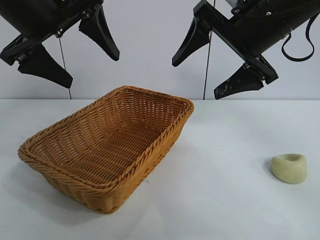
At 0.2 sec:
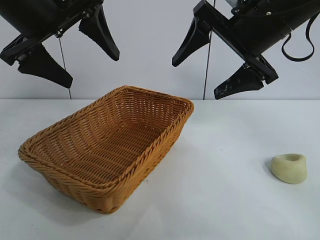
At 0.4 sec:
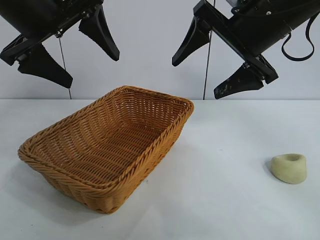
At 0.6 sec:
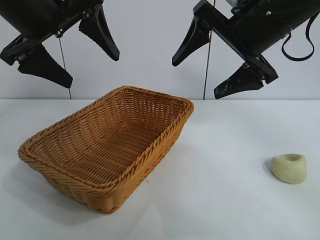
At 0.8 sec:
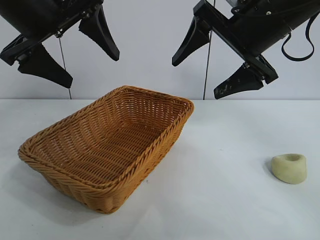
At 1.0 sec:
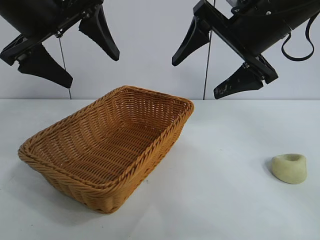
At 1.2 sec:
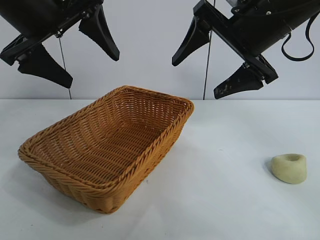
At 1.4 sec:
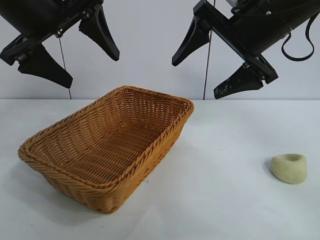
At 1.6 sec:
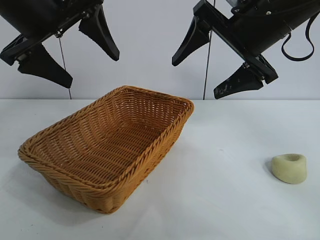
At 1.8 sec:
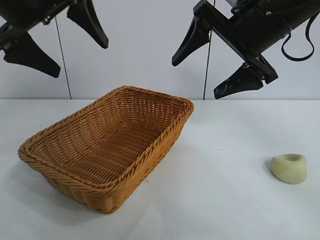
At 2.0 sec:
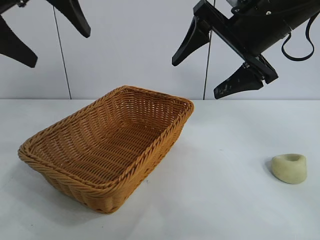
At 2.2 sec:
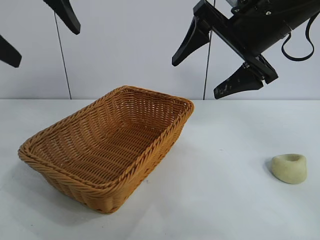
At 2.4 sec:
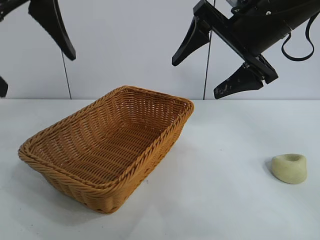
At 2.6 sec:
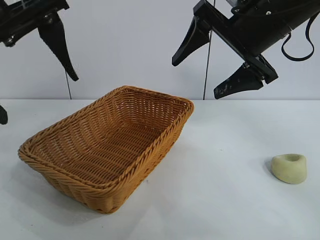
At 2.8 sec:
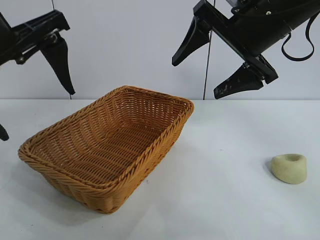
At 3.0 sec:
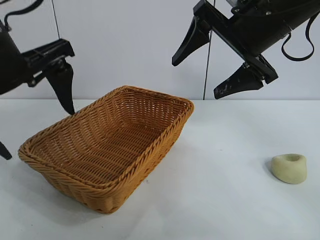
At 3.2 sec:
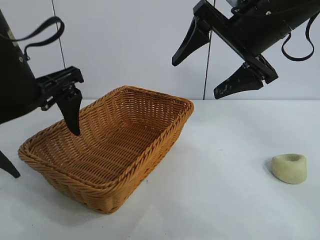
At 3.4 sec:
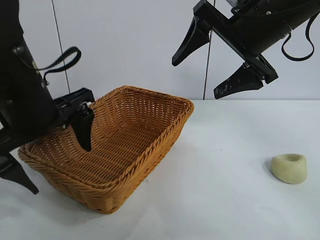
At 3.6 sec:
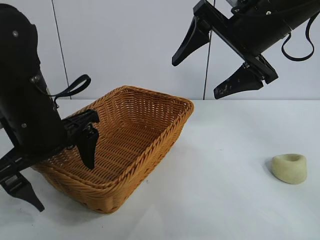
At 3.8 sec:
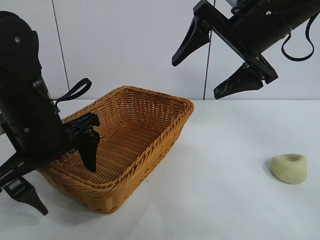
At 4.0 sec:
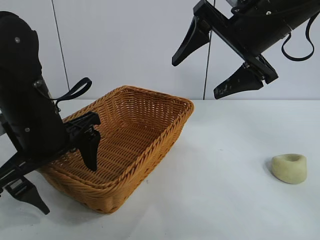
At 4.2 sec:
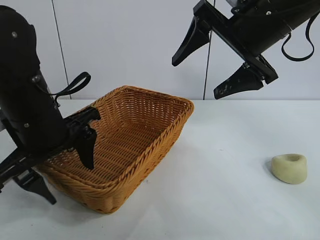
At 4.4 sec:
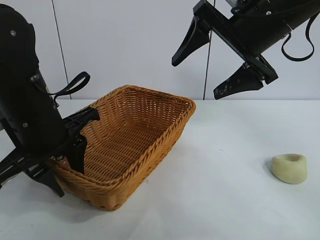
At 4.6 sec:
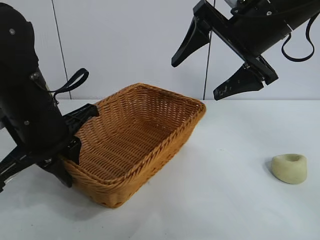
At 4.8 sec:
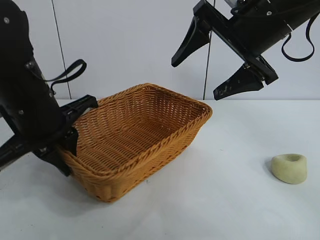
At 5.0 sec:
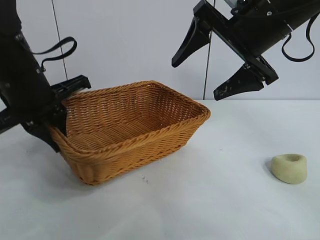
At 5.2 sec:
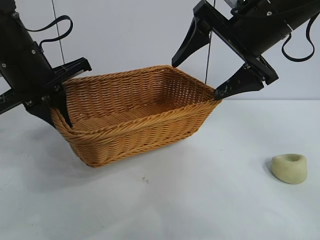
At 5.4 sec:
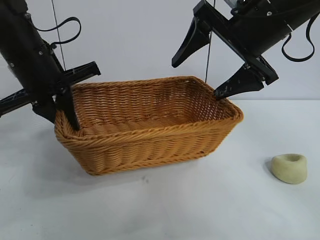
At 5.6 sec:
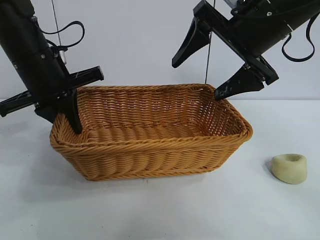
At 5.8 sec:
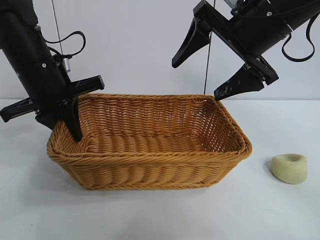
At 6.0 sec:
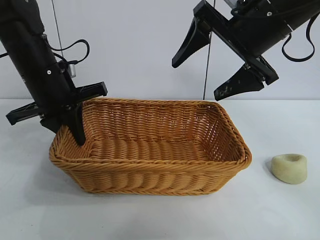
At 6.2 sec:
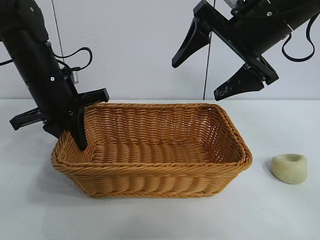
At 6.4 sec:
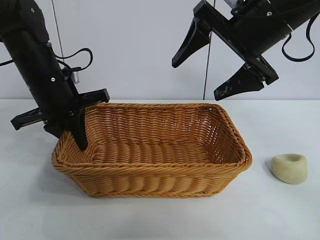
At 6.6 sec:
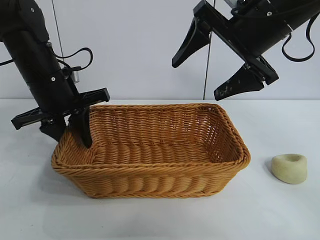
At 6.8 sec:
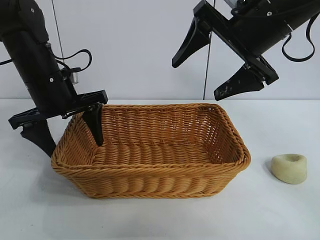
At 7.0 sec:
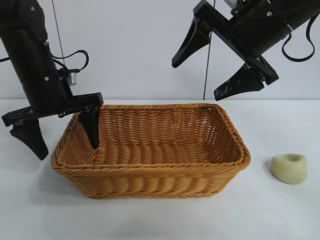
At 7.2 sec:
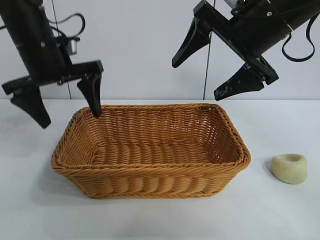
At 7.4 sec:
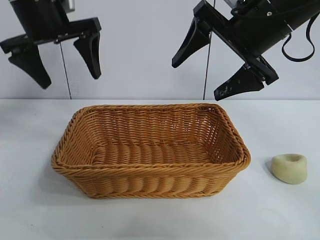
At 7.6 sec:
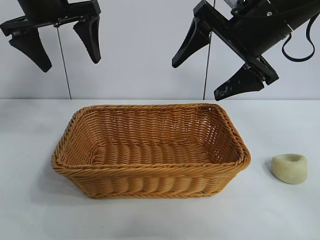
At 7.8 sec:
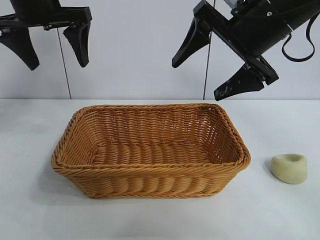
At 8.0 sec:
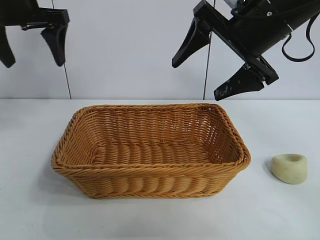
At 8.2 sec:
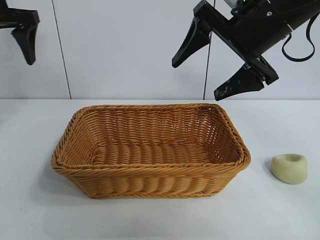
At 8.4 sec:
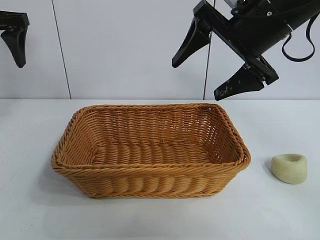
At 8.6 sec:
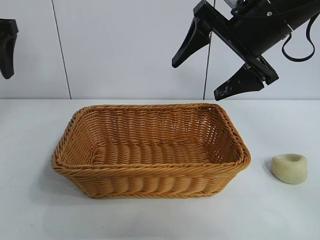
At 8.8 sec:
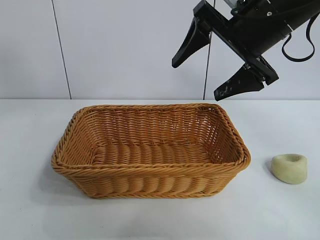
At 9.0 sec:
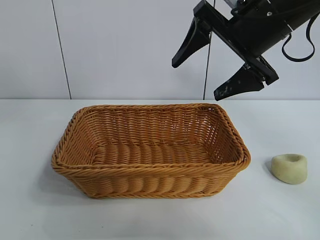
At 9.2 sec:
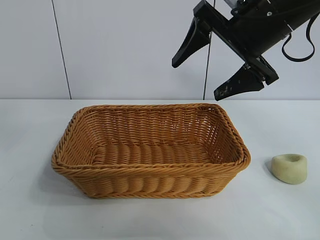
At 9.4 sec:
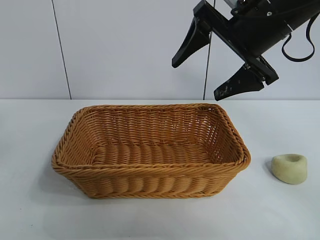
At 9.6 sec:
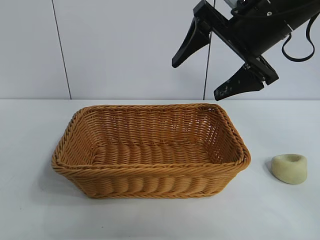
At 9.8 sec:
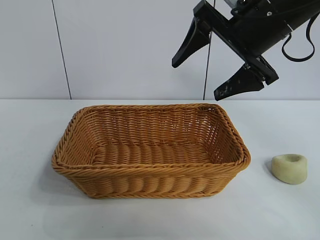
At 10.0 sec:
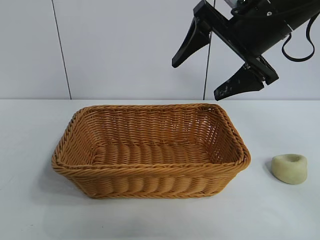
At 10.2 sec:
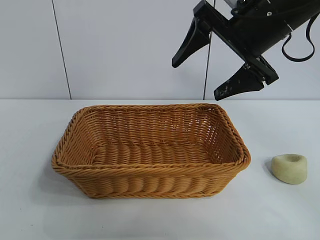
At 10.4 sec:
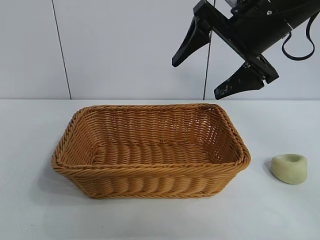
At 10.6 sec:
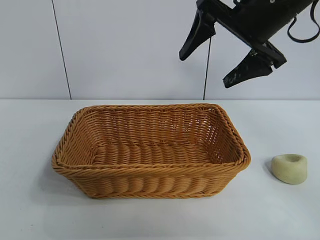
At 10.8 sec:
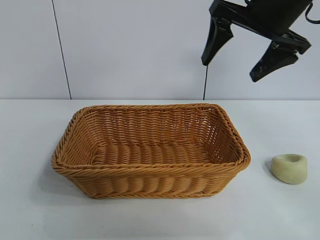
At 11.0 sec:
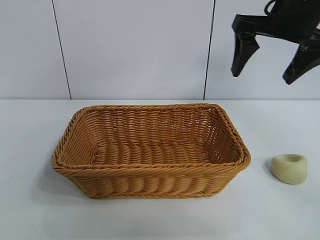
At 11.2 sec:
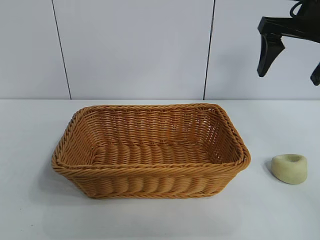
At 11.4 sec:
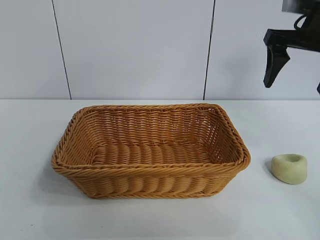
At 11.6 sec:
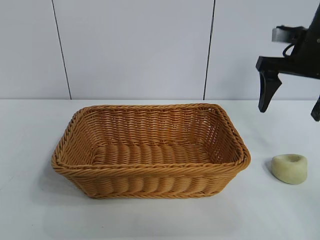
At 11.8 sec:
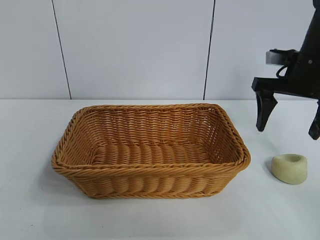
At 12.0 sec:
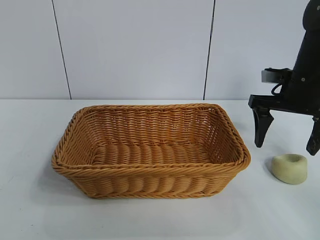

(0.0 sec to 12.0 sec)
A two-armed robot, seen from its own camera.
Task of the whole recording: pick up the egg yolk pastry and put it into the basket.
Step, 1.8 sec - 4.4 sec: Grasp the basket with left gripper.
Step, 4.8 sec - 6.6 sec: Place the basket in the center of view with left gripper.

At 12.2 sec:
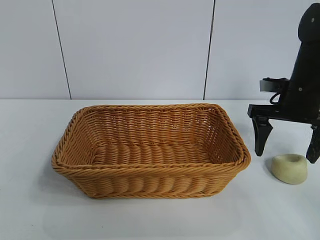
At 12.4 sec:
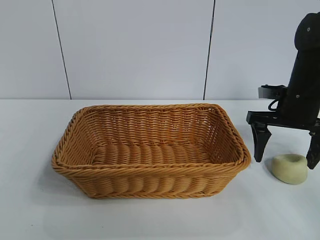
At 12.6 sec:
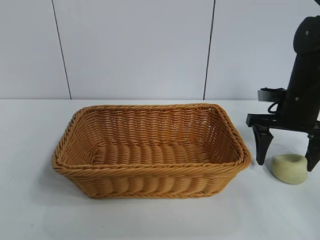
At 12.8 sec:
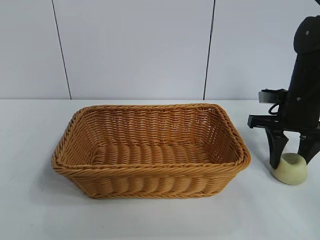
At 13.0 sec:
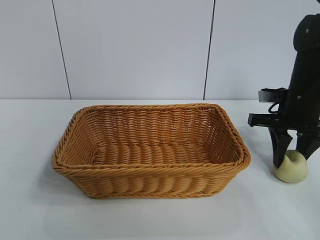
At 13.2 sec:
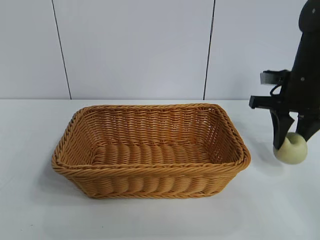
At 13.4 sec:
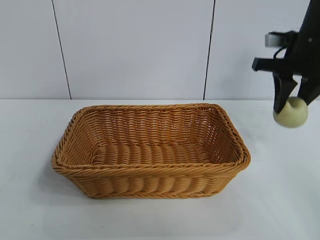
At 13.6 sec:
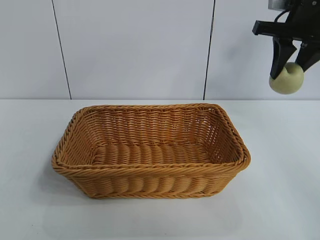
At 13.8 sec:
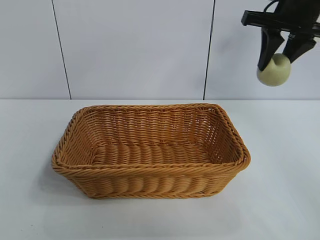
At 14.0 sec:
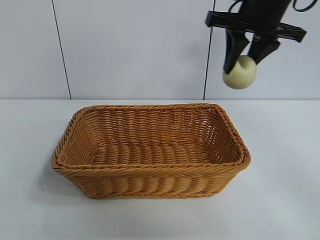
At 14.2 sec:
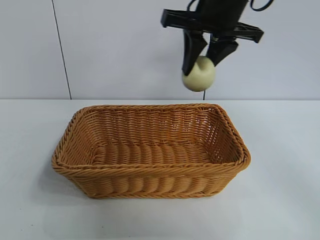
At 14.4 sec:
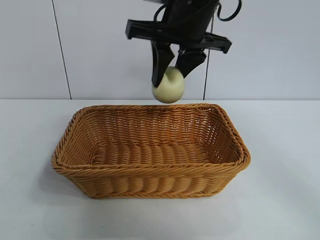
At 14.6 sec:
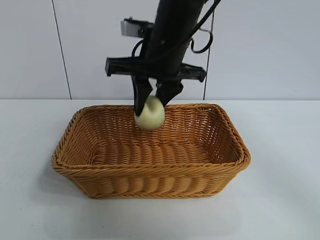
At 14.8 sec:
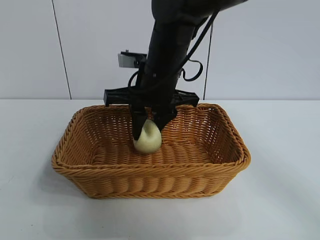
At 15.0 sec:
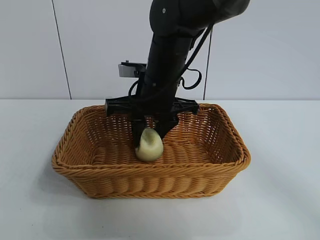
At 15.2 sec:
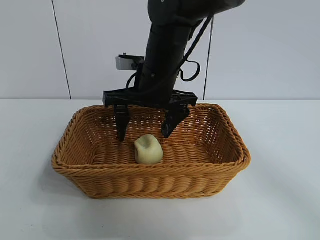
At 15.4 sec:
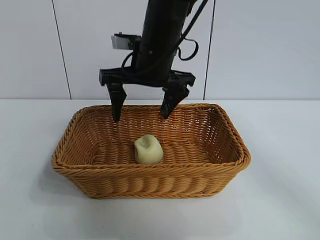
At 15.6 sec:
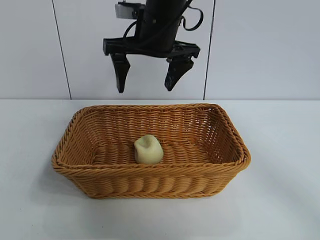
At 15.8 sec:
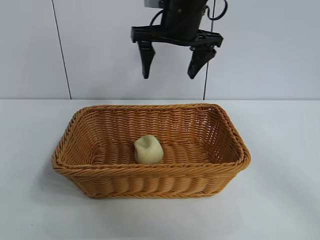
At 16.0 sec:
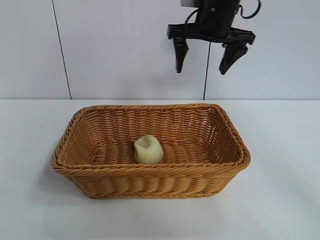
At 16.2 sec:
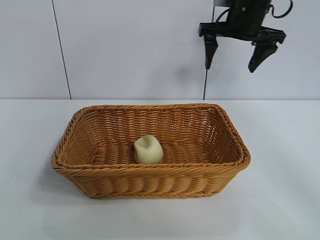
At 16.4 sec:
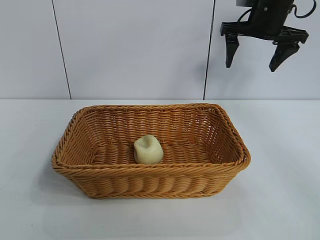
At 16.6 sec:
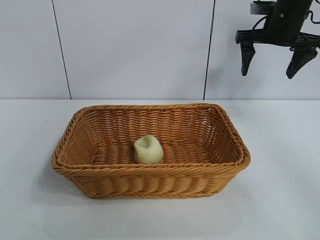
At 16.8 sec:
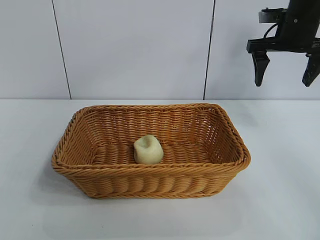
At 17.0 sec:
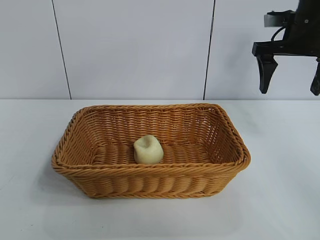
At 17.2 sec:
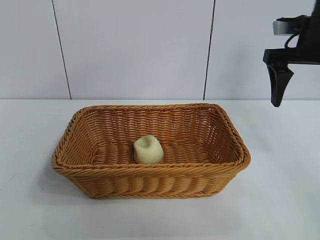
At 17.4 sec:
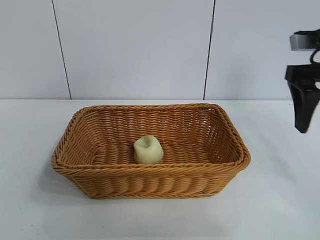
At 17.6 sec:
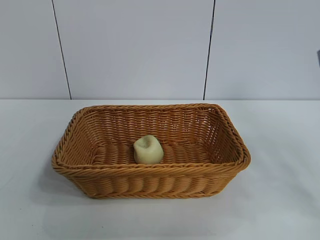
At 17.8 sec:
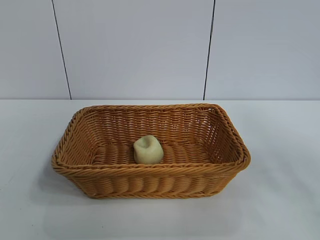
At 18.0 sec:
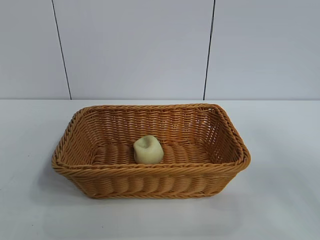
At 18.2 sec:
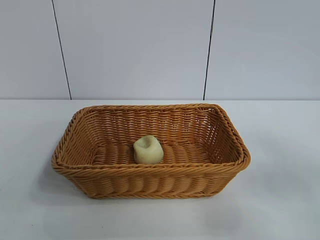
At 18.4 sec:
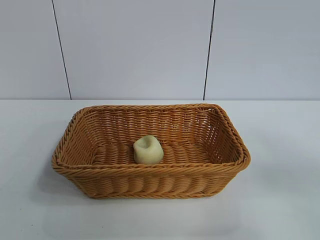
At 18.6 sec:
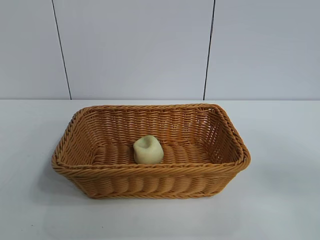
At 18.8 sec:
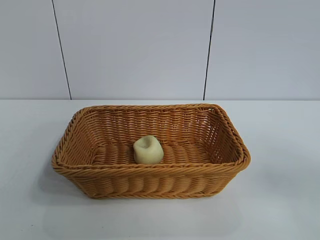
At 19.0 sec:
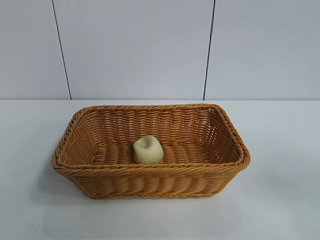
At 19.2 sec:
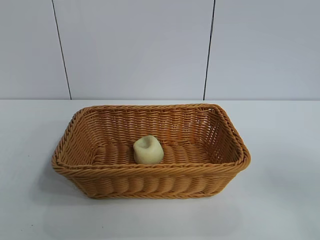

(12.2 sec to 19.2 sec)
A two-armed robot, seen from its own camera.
Task of the whole recording: pick up the egg yolk pastry and put it into the basket.
Step, 13.2 sec - 15.2 sec: Place the egg yolk pastry in the basket with right gripper.
